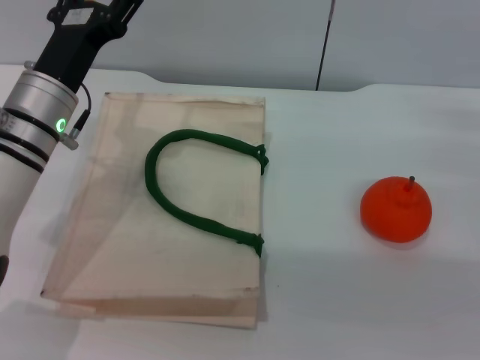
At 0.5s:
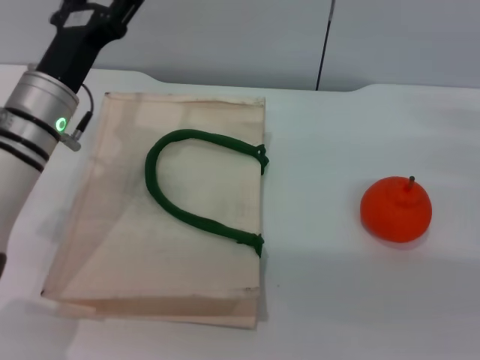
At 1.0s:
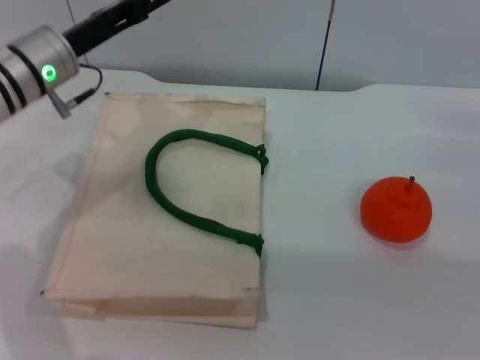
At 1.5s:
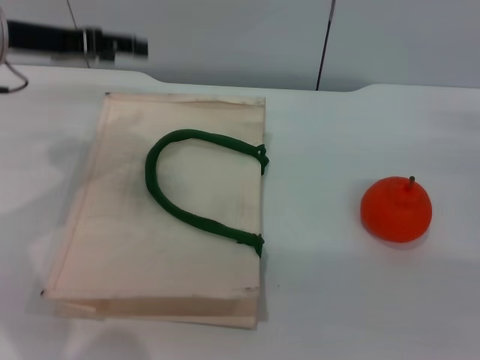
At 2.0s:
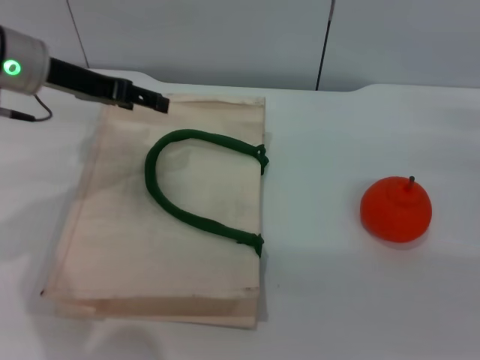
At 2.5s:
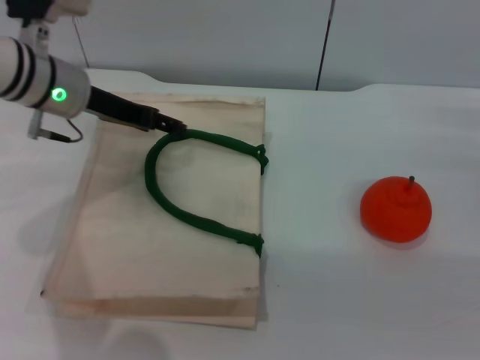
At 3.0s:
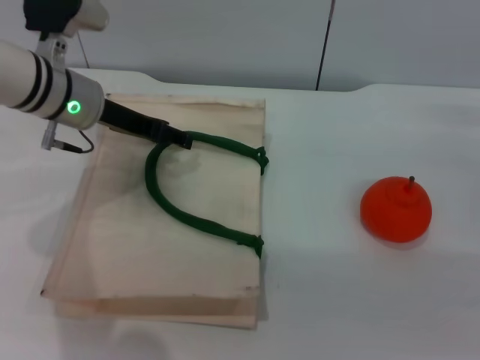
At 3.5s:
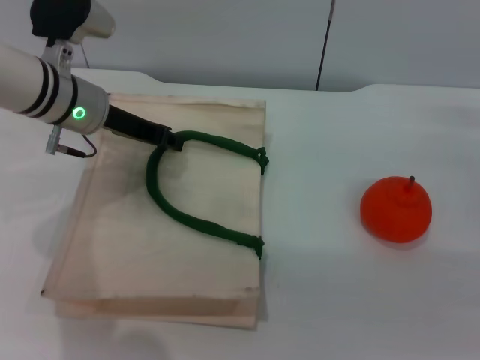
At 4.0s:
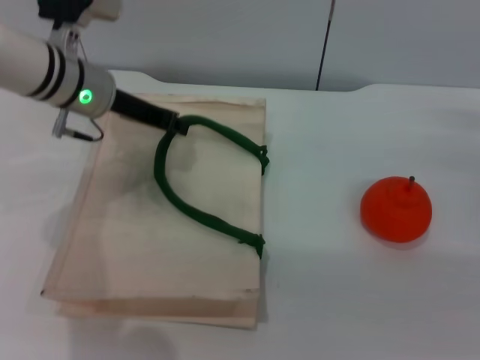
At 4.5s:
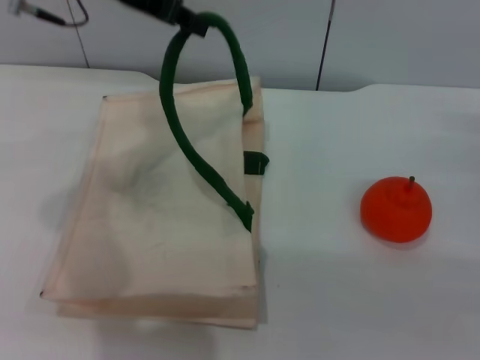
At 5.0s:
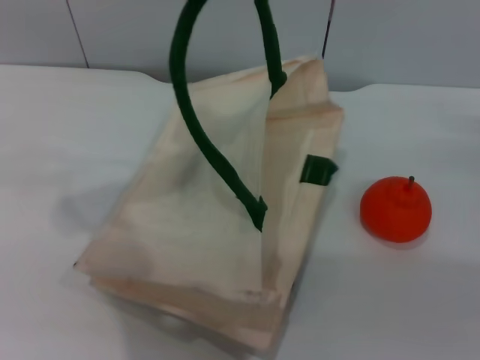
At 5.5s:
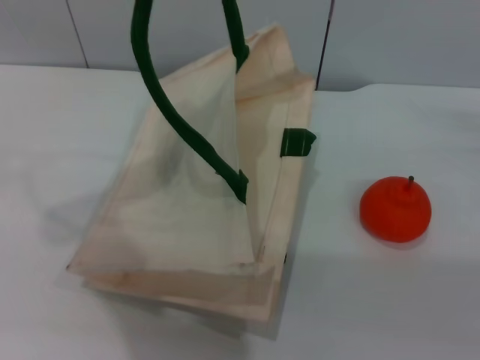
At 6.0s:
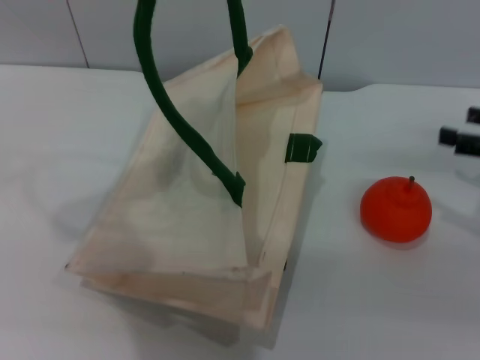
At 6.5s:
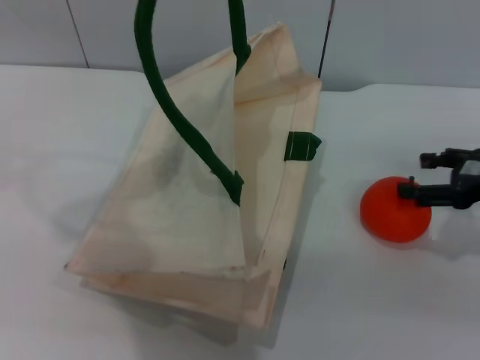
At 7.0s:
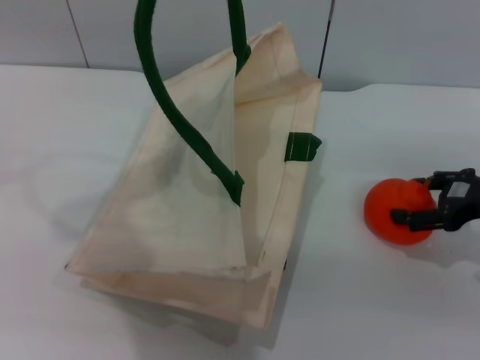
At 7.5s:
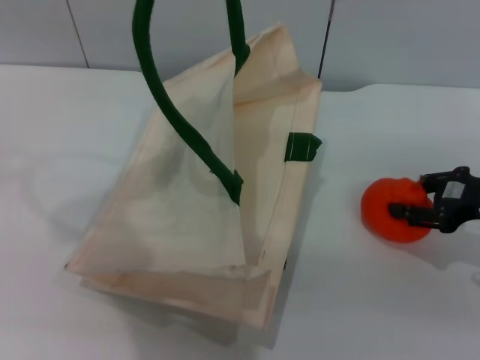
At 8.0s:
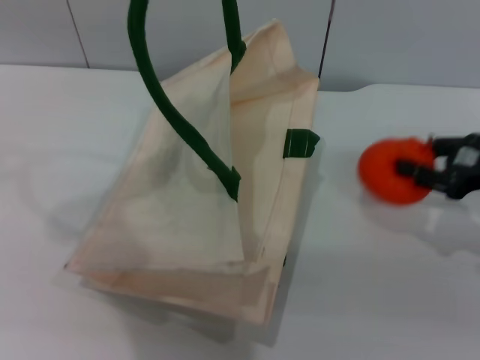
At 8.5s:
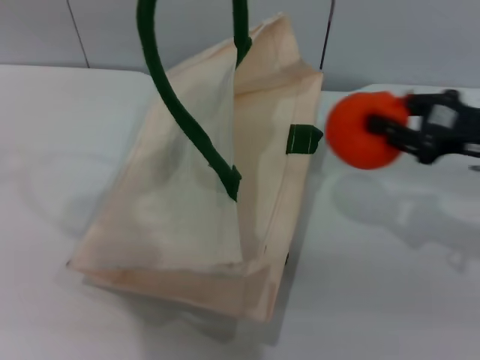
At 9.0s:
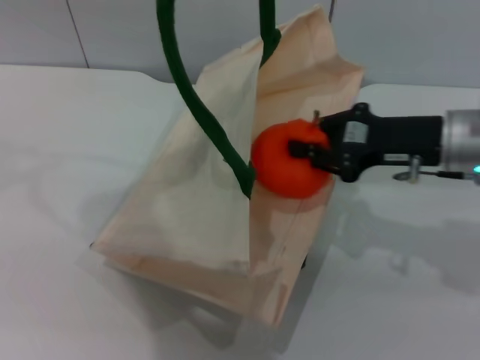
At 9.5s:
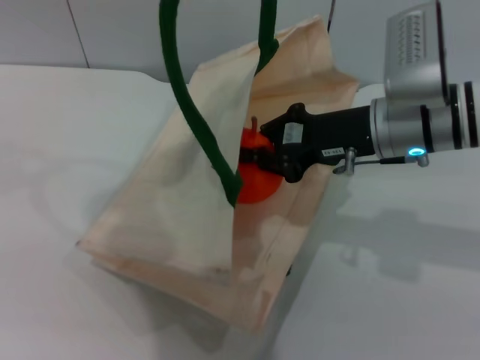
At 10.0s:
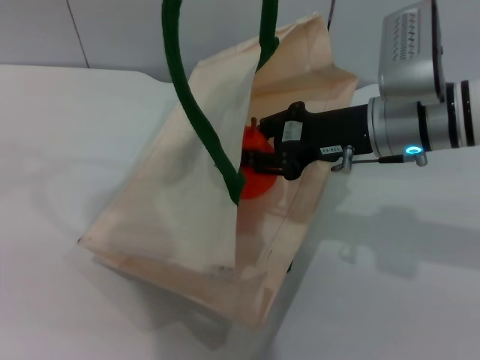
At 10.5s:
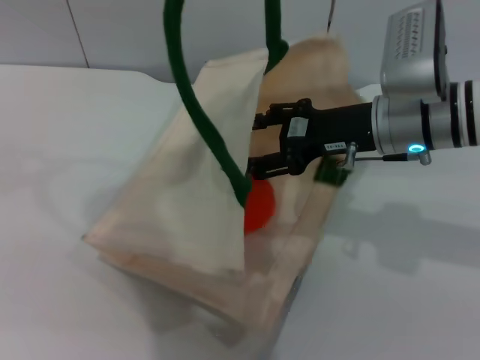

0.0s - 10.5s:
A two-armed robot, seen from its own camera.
Task of the whole recording: pick up the orange from the table and place it in the white handbag.
Step, 0.0s - 4.5s: Lift the woven bag with the left gripper to open it.
Step, 5.0s - 8.0s: Pick up the orange with the right gripper.
0.0s - 2.0s: The left gripper goes roughly 10 cm upward and forward.
2.0s - 4.0s: The left gripper travels to the right by some 5 cm, and closes its fingers.
4.0s - 6.5s: The left gripper heads upward, covering roughly 25 cm.
6.5s - 8.5s: The right gripper closes.
8.5s - 10.5s: The right gripper shifts about 15 cm to the left, and opens its fingers.

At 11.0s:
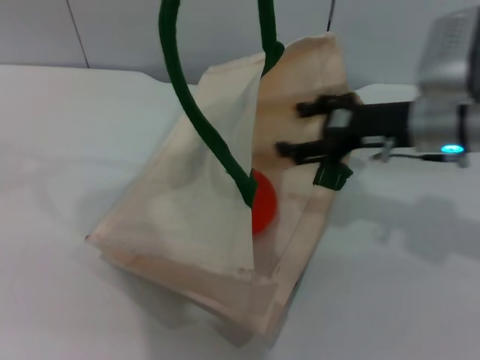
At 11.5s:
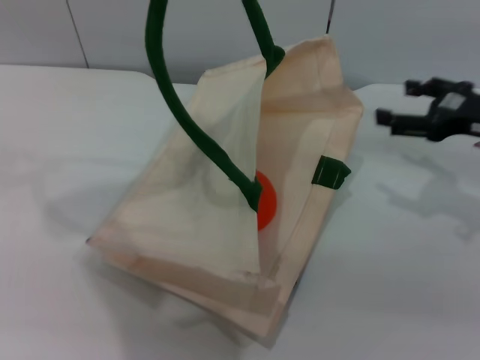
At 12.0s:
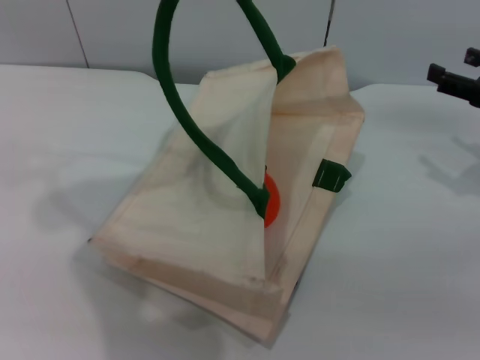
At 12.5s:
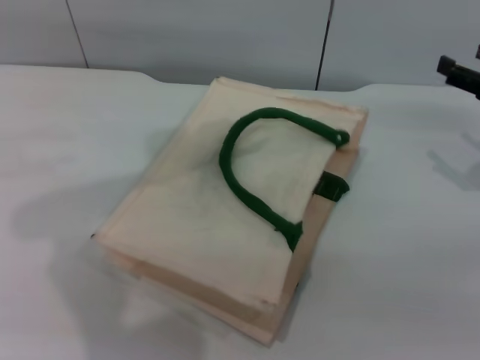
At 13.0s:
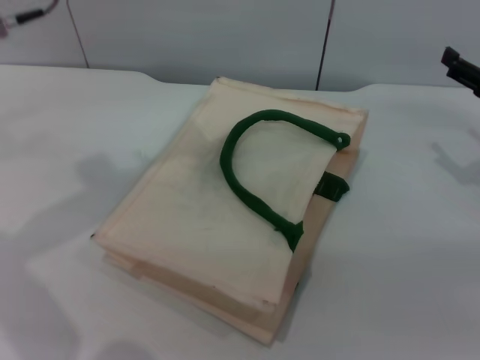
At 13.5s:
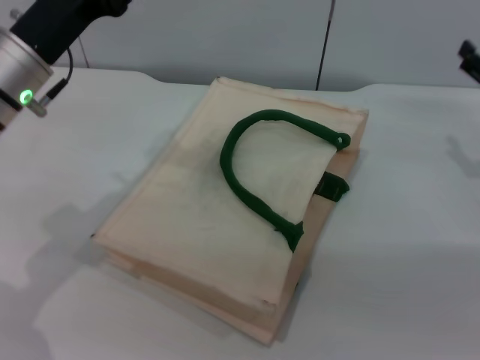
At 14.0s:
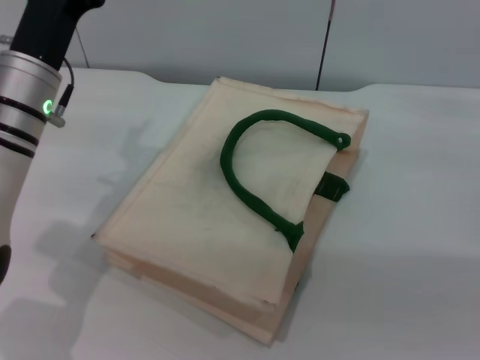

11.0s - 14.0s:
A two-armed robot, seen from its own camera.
Task of the whole recording: pick up the orange from the table and place it in the white handbag.
Step, 11.0s - 12.0s: Lower the woven bag with the left gripper to close it.
11.0s - 12.5s: The left gripper shifts roughly 5 cm downward, and opens its fingers, while the right gripper is displaced to the right by roughly 15 cm.
12.5s - 14.0s: The left gripper travels downward by about 20 cm, and opens its fingers.

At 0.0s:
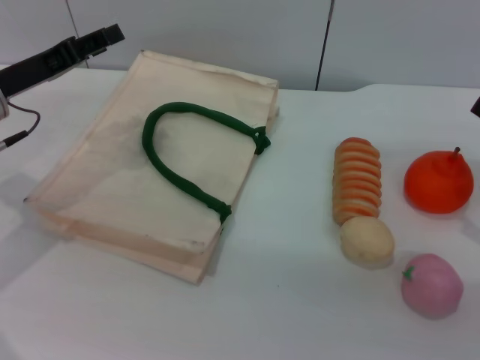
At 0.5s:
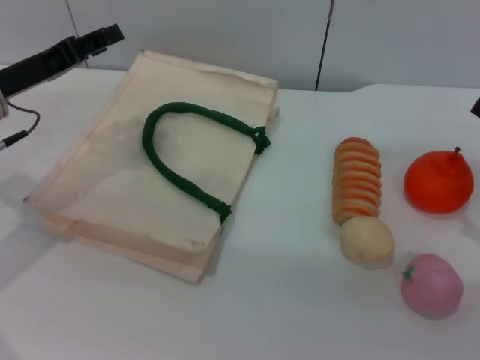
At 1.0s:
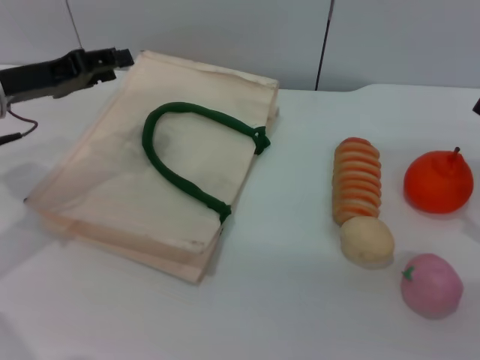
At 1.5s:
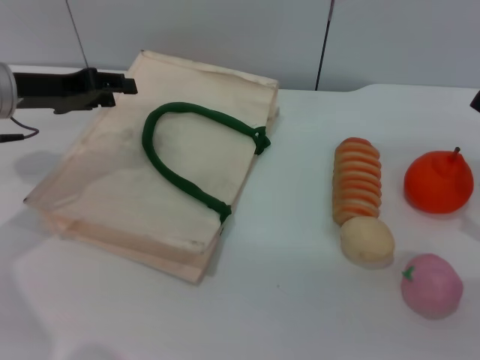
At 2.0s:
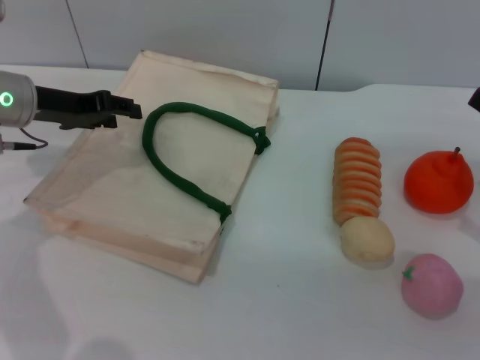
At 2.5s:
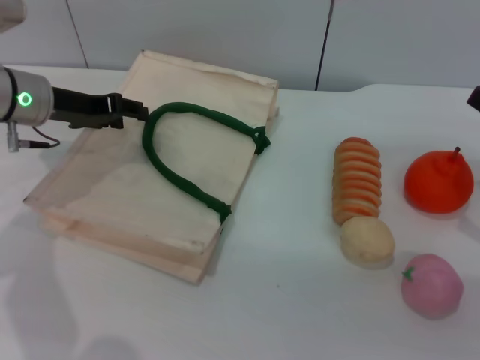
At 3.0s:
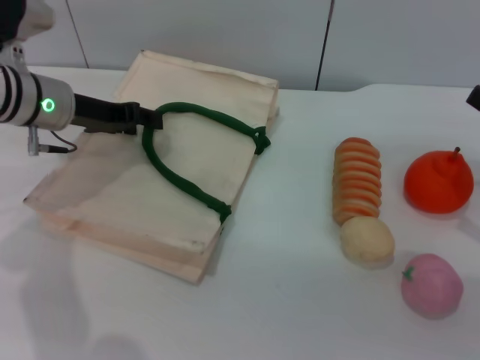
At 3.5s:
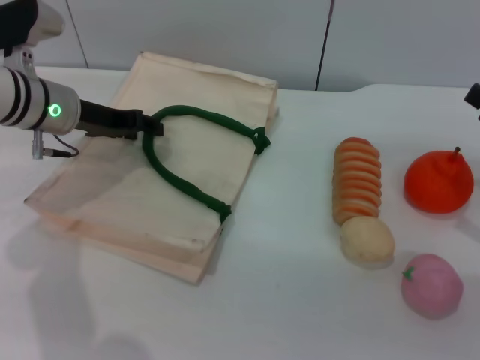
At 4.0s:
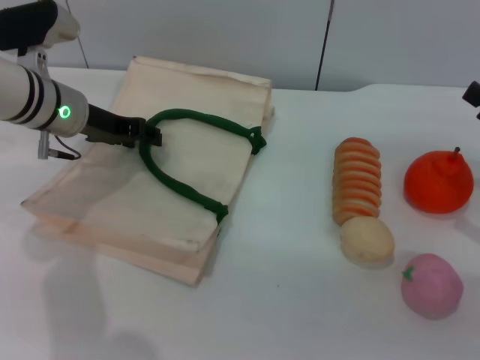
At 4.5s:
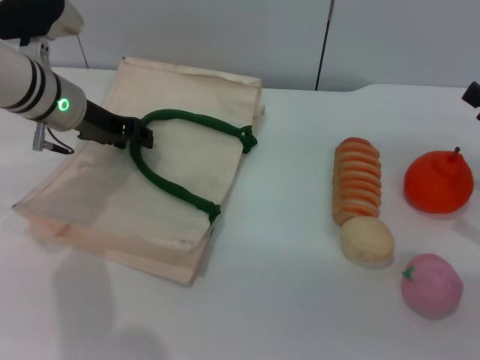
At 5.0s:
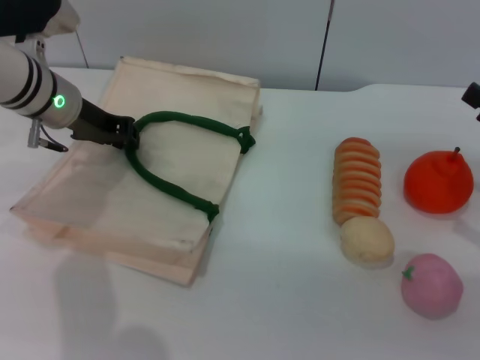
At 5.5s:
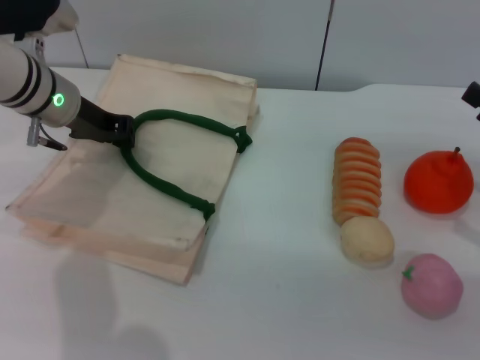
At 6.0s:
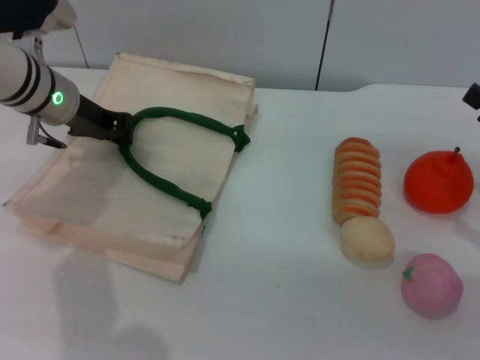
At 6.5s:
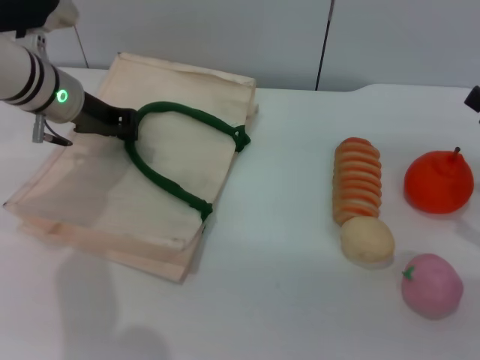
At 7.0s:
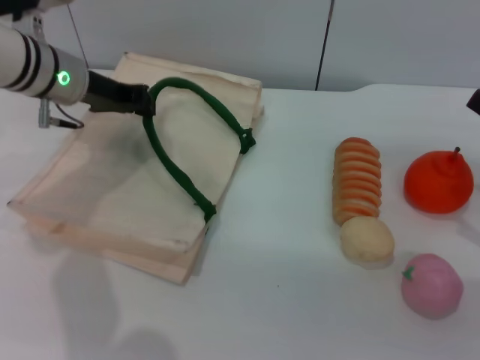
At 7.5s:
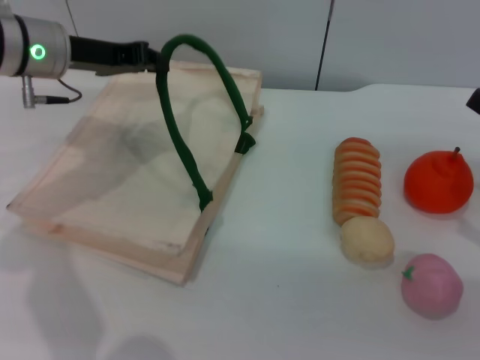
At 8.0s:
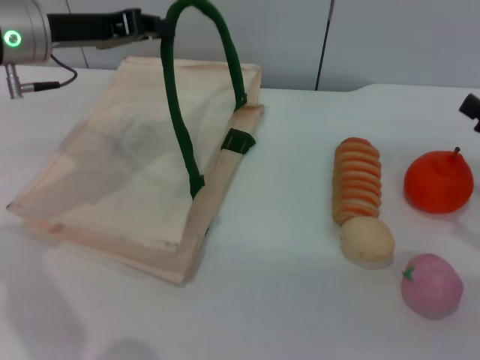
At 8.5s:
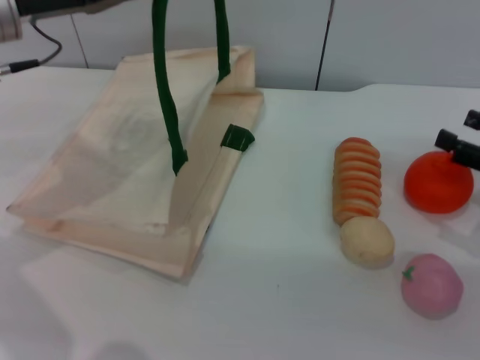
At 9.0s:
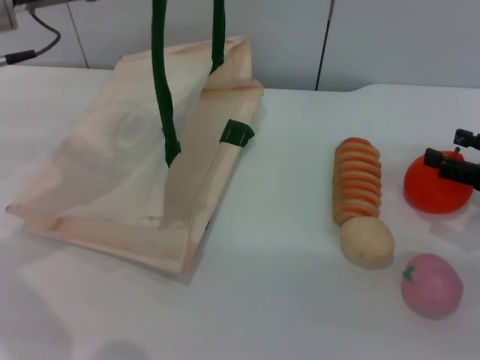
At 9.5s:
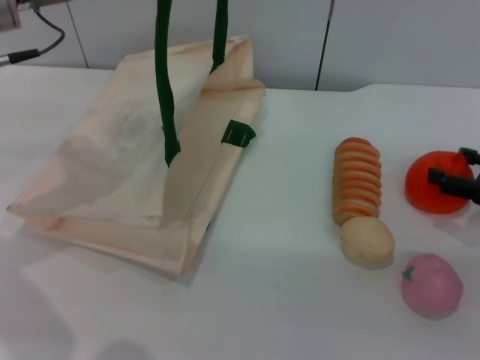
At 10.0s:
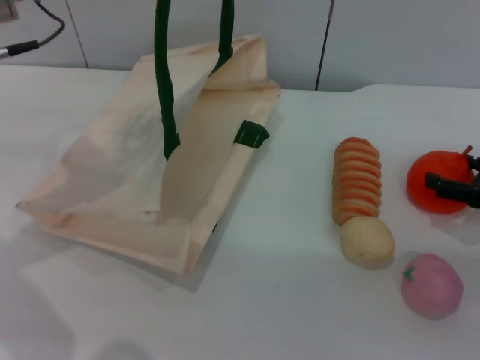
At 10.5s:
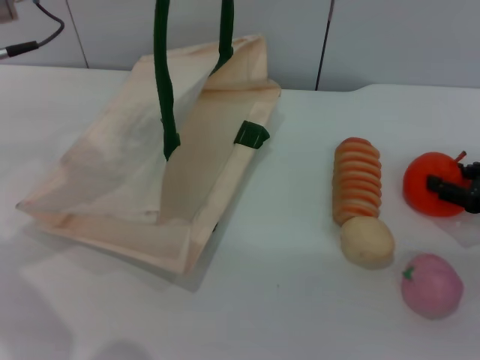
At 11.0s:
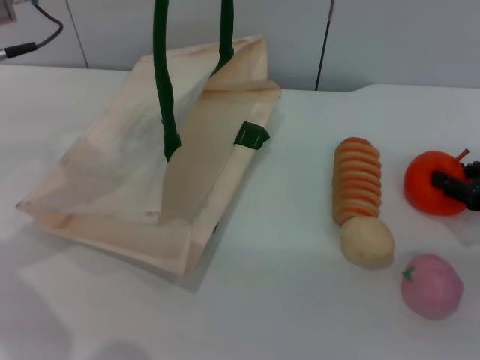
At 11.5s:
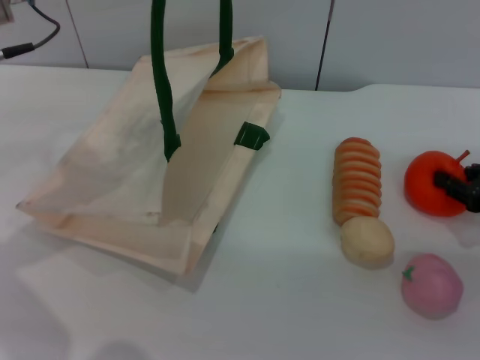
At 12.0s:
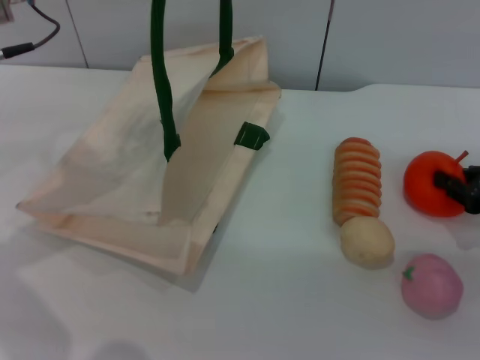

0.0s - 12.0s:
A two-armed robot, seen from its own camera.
Task of the whole recording: pick up the orange from the table and place it in the white handbag.
Step, 0.0s - 8.0s: Lift the woven bag with the left gripper to open it.
2.0s - 4.0s: The left gripper ends up some 5 cm from where it was.
4.0s - 6.0s: The left gripper closes up.
6.0s - 8.0s: The left gripper heads upward, covering some 5 cm.
10.0s - 12.0s: The right gripper closes up.
